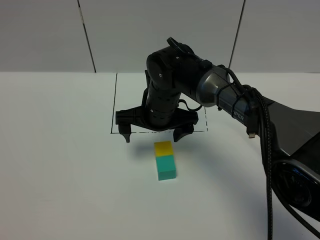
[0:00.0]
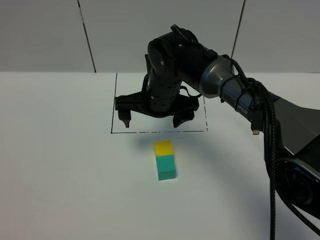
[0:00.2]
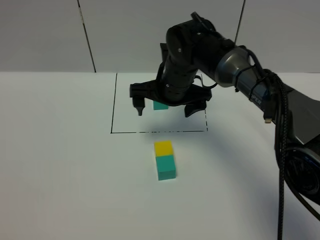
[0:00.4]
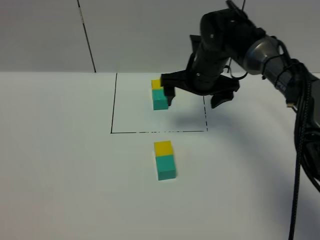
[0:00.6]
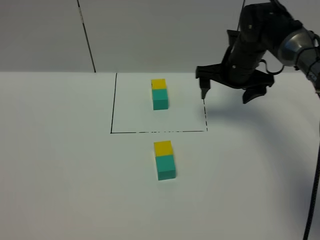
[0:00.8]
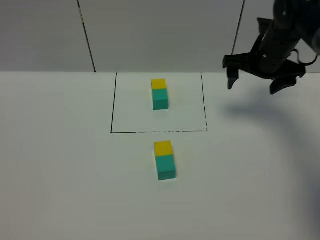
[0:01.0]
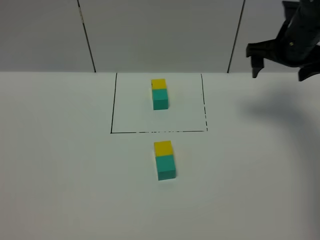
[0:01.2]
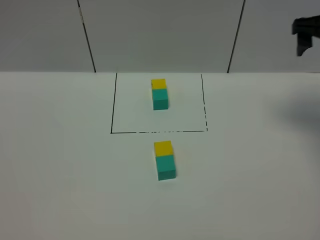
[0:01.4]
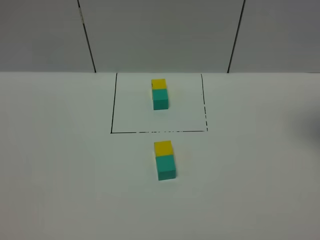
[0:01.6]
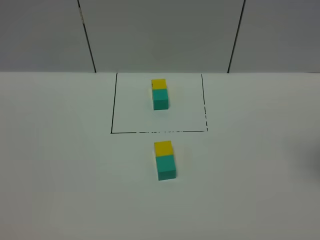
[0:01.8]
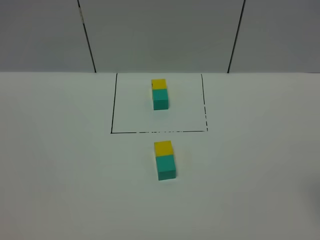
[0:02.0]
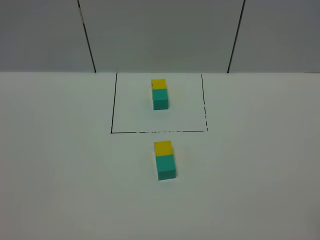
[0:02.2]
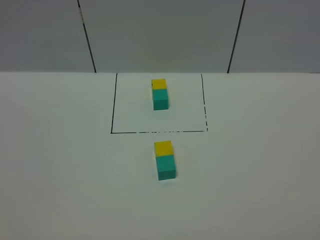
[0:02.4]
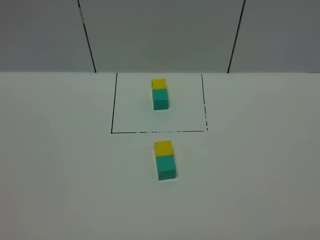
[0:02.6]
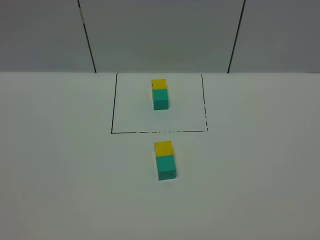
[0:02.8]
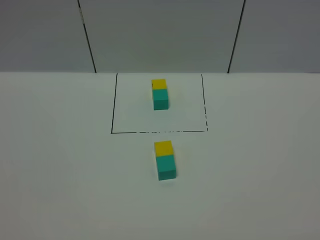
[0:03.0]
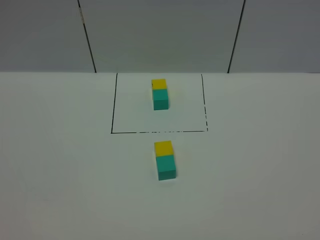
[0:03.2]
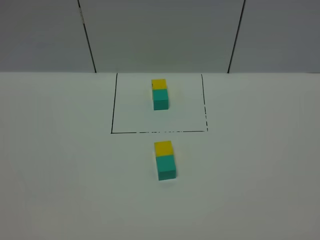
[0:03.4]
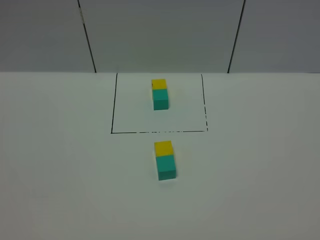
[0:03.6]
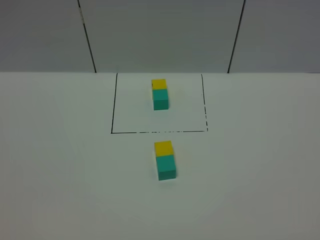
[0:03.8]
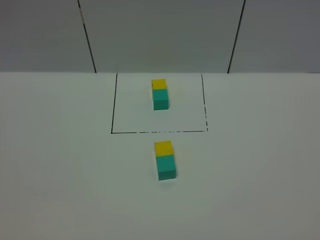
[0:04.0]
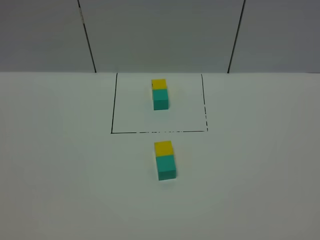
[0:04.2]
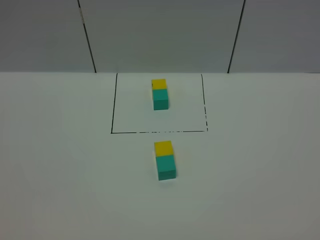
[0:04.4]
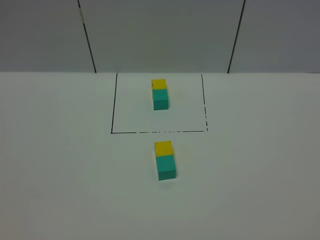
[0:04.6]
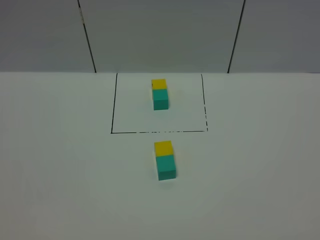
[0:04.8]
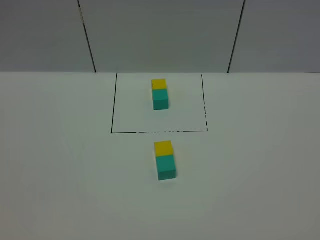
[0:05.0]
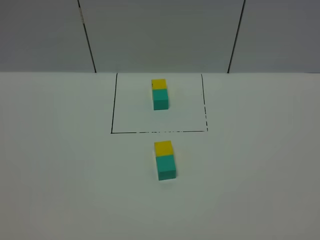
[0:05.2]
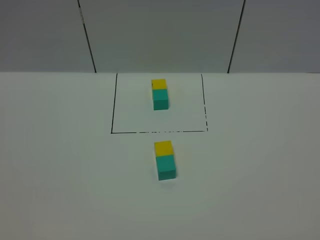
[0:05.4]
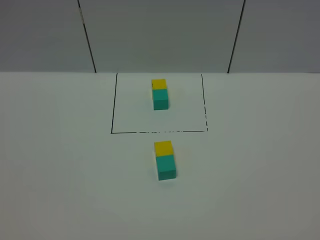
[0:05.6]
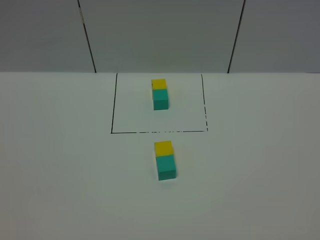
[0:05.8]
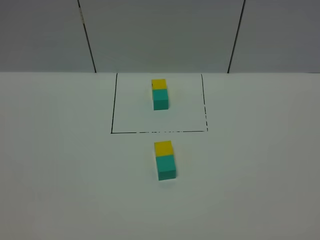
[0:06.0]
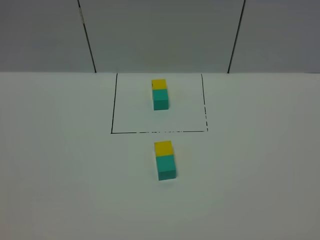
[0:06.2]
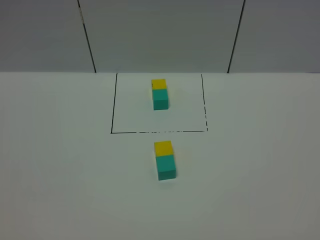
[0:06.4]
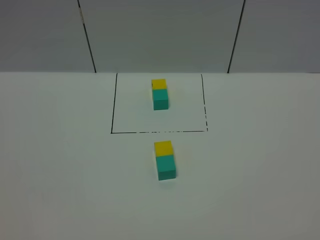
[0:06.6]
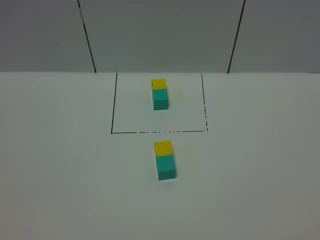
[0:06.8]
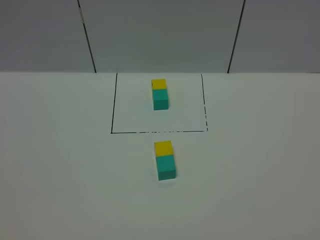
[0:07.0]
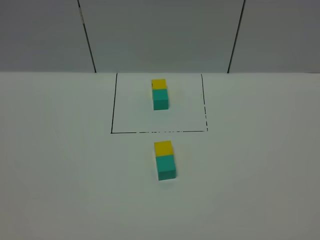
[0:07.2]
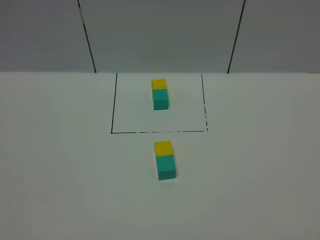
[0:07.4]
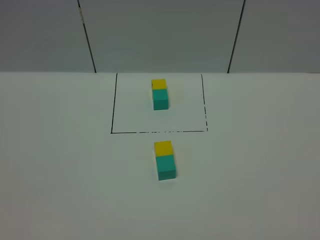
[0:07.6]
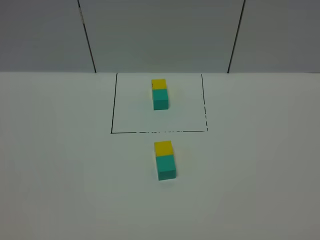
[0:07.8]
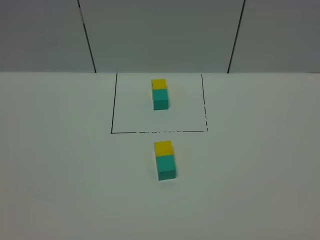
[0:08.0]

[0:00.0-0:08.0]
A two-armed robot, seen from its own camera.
Task of the whole recording: According to the building block template in front, assemble the scattered blocks together.
0:00.0 to 0:01.6: The right gripper goes about 40 cm to the right and upward.
0:03.2 to 0:04.8: Both grippers stay put.

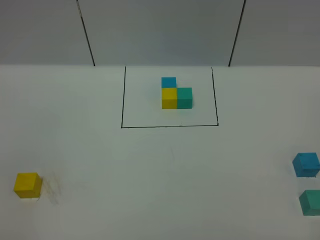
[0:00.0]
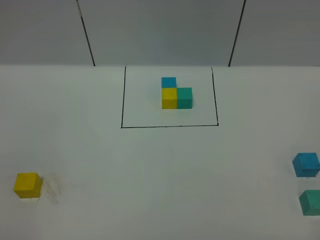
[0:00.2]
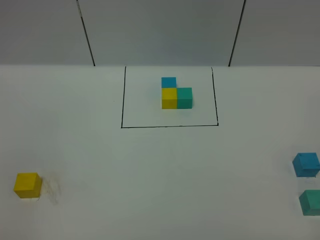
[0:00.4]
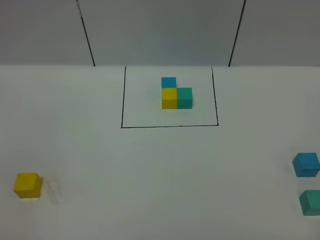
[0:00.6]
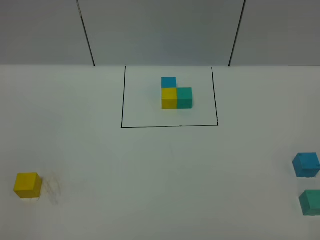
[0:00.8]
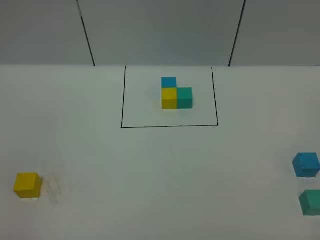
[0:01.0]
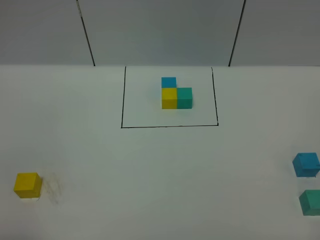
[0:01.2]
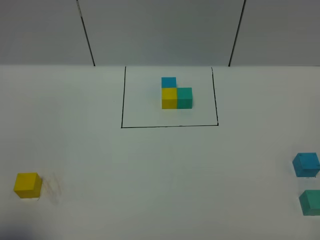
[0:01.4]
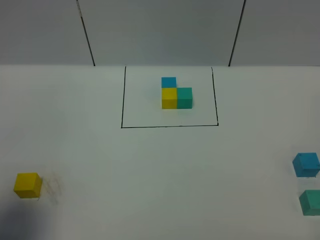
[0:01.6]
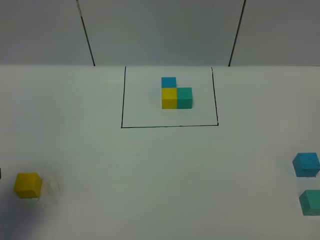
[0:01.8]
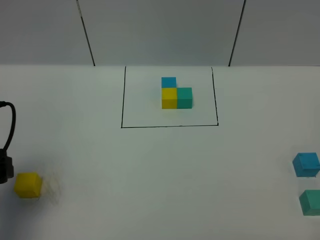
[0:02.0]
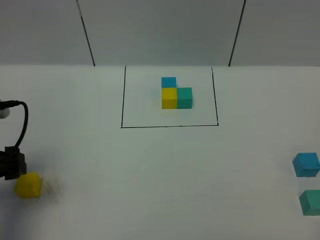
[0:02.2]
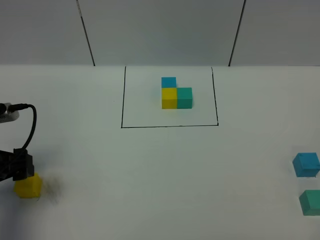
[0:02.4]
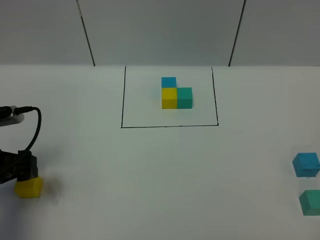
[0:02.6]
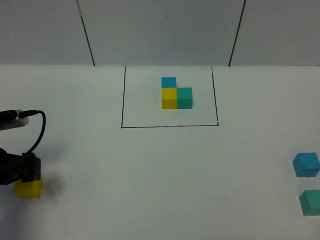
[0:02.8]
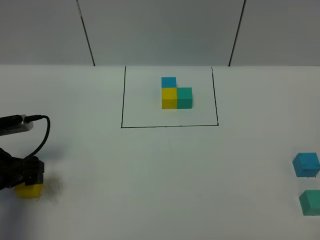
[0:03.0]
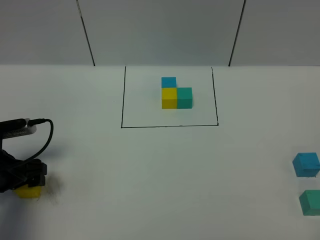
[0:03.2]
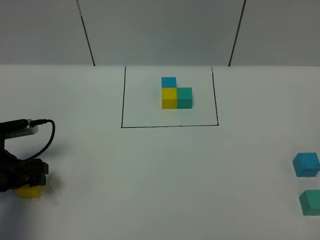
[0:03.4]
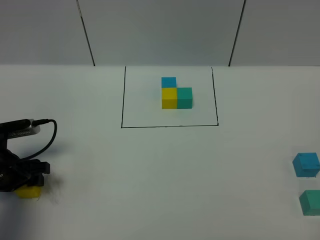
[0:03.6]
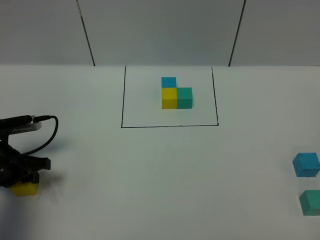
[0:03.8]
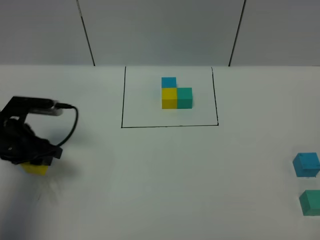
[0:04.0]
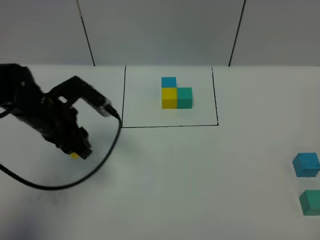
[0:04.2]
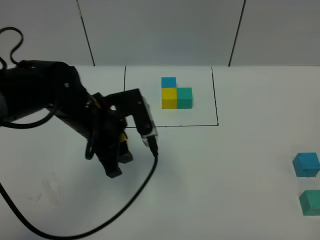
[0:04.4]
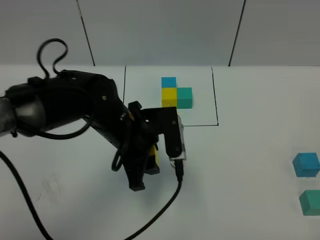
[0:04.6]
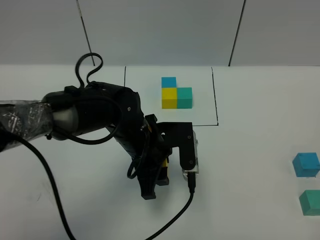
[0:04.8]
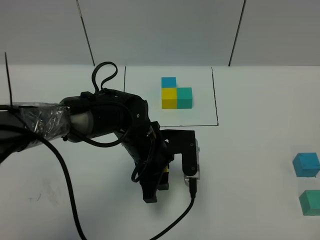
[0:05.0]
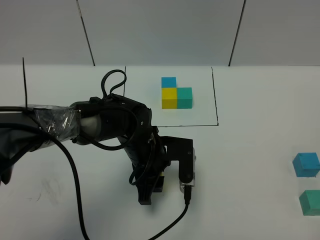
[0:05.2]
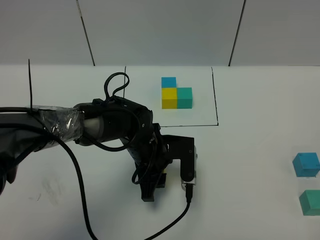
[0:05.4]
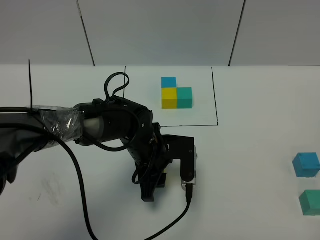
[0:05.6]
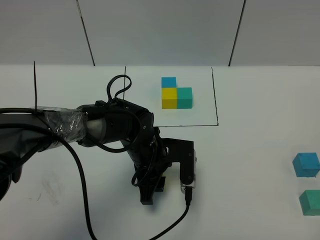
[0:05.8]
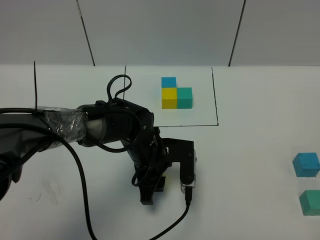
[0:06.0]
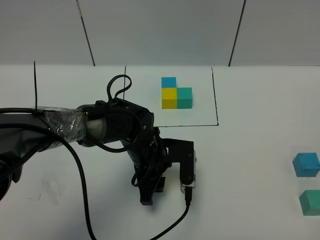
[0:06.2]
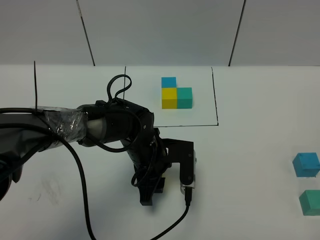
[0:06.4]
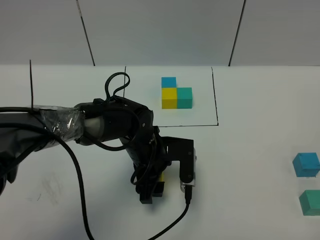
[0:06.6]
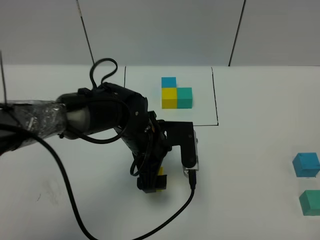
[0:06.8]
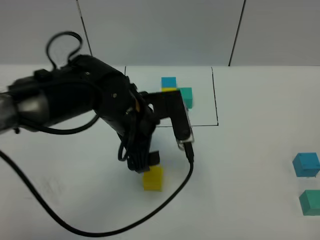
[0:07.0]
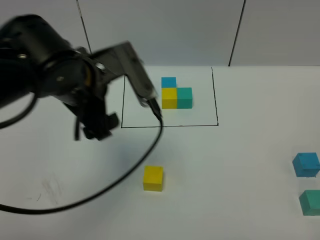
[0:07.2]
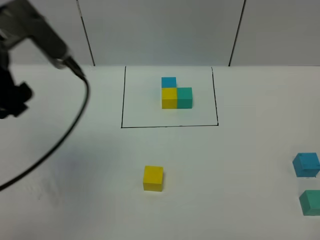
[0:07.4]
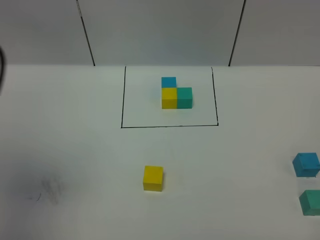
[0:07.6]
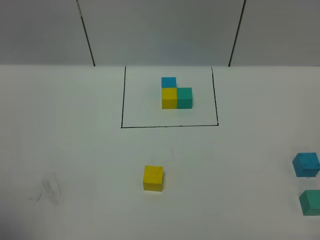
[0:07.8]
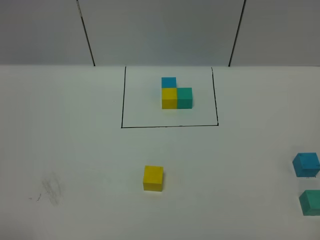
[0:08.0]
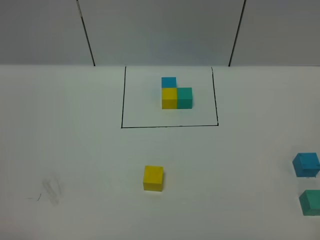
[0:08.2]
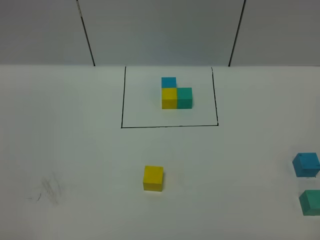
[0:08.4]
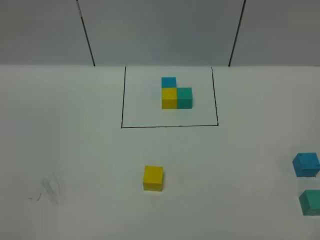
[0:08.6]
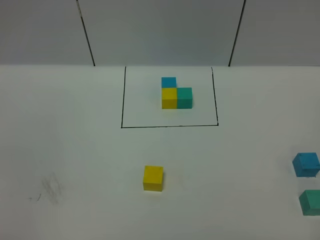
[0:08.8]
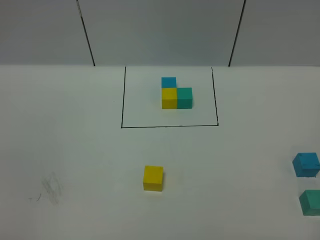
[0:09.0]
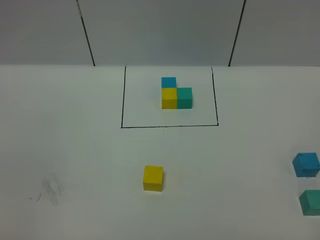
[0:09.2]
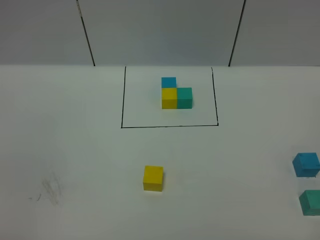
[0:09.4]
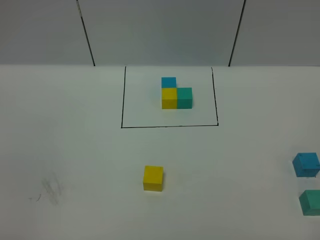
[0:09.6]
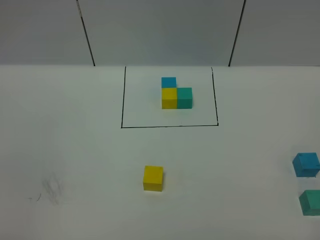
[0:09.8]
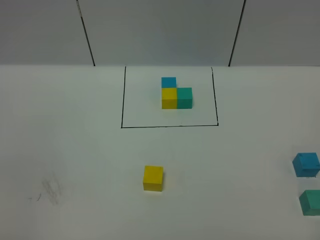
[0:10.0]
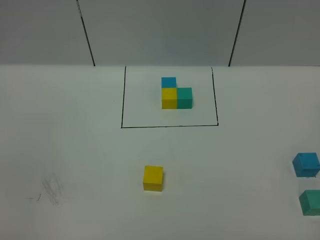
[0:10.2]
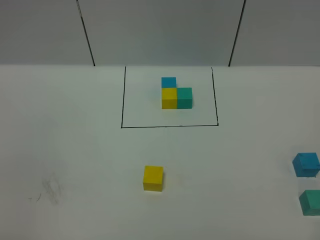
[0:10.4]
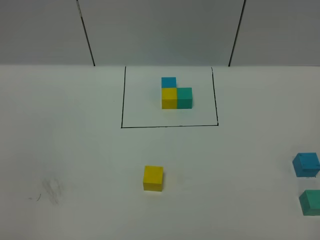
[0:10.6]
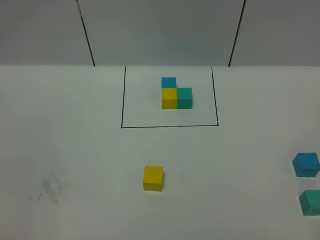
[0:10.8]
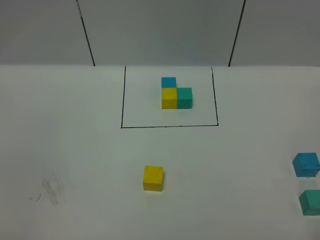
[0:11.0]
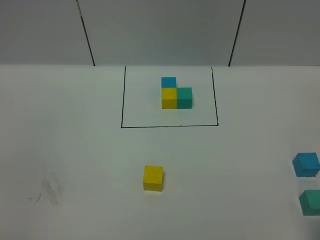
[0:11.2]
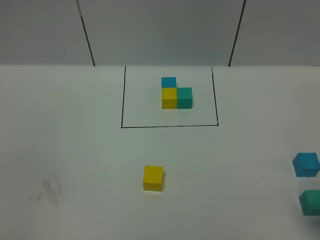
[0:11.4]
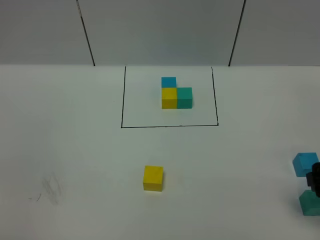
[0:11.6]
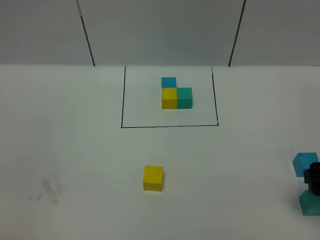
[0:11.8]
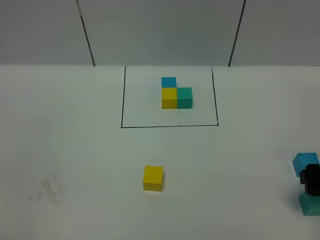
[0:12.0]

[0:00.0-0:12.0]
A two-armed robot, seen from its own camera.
Task of the whole recording: According to the building block template in front, assemble the scattered blocks together.
Step, 0:01.8 to 0:07.0: Put the yellow cube in the center of the table.
0:00.0 to 0:01.6: The left gripper travels forward by some 15 cm, and opens its fingers.
0:01.6 to 0:03.0: The left gripper shifts some 20 cm downward and forward.
0:03.0 to 0:04.4: The left gripper shifts about 20 cm to the right, and closes up.
0:04.4 to 0:06.0: The left gripper heads downward and to the right, covering about 15 cm.
0:06.0 to 0:07.6: The left gripper is displaced upward, to the left and backward by approximately 40 cm, and opens.
0:07.6 to 0:09.0: The left gripper moves backward and downward, about 25 cm.
0:10.4 to 0:12.0: The right gripper is displaced forward by approximately 25 cm.

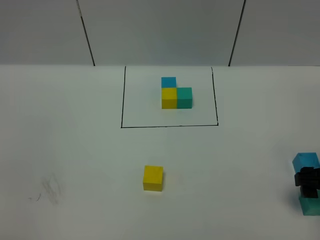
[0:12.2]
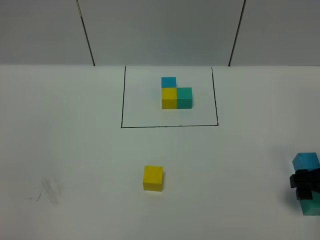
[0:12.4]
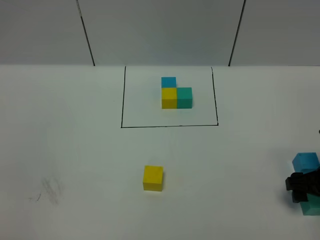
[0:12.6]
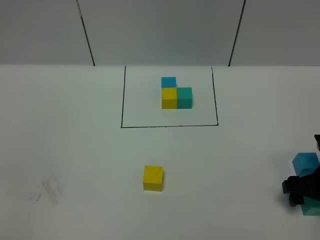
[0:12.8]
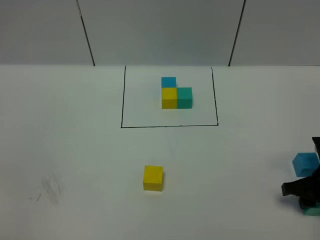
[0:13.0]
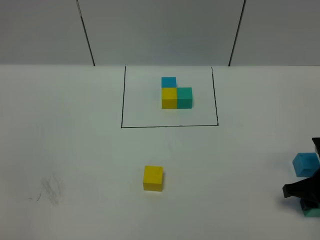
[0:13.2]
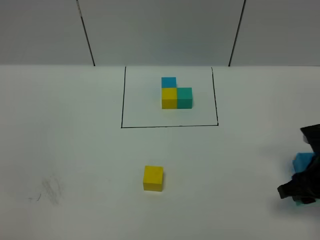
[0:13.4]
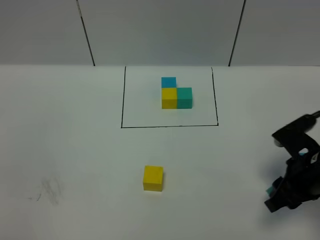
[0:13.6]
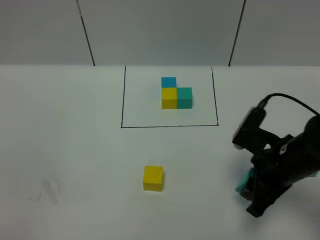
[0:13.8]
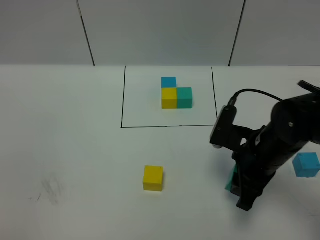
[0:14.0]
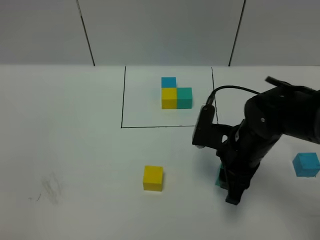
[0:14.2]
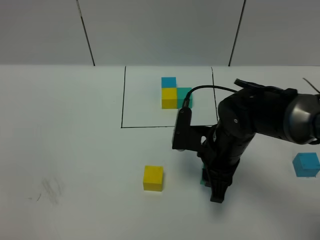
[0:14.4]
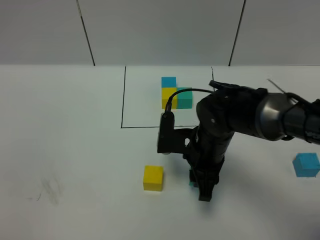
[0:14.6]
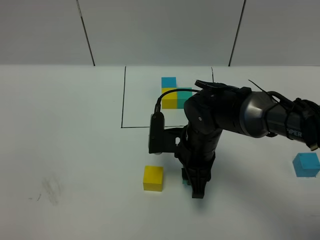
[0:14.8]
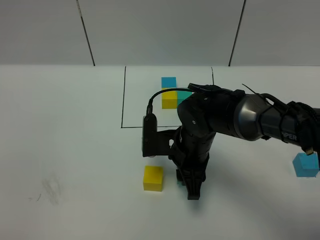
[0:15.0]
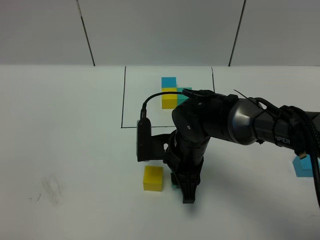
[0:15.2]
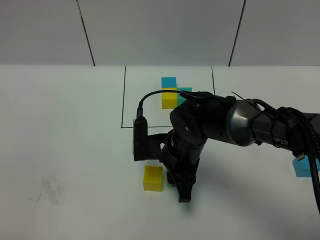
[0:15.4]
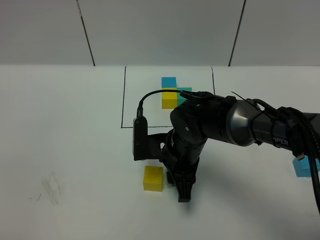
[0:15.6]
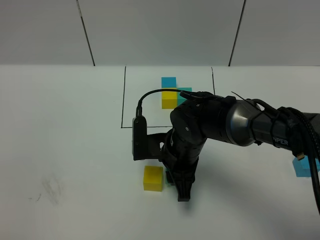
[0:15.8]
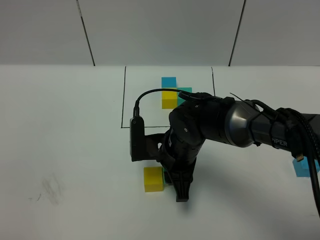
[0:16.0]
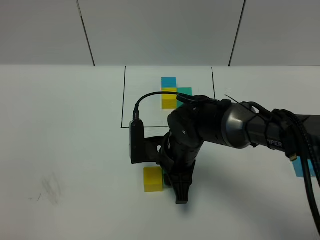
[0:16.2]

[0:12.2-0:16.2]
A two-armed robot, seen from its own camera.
Task of the whole recording: According to the building block template in front, assemble the scattered blocks together.
0:12.2 to 0:13.6: The right gripper goes approximately 5 cm to the left, and closes its fingers.
0:13.6 to 0:14.8: The right gripper goes approximately 20 cm to the left and forward.
0:14.8 to 0:16.2: The grippers stay close to where they were, moving slightly.
